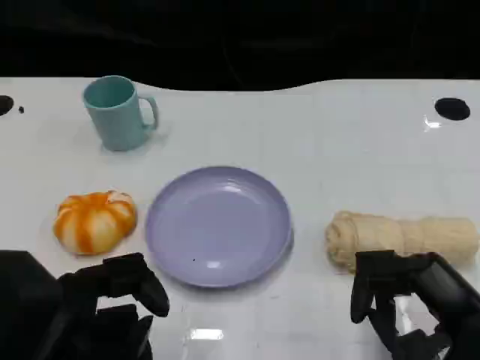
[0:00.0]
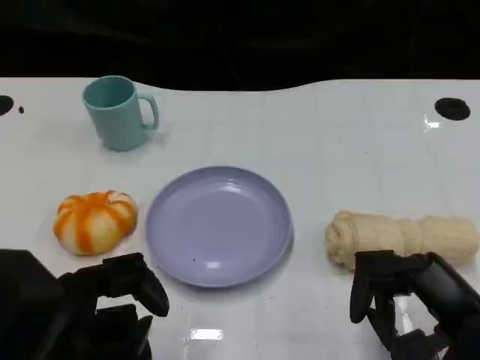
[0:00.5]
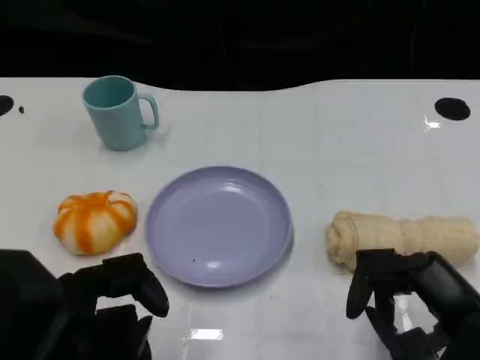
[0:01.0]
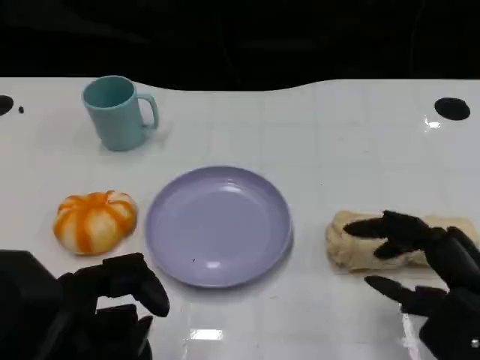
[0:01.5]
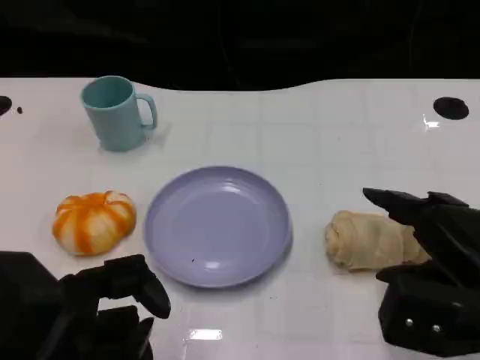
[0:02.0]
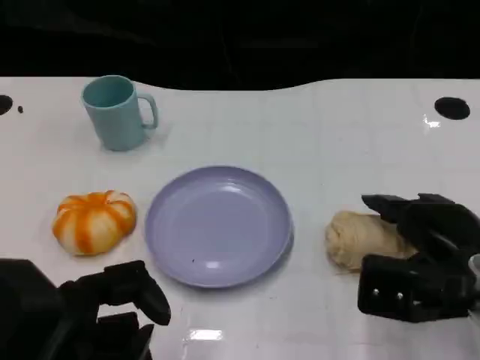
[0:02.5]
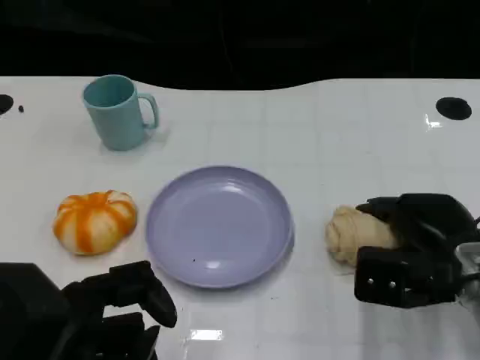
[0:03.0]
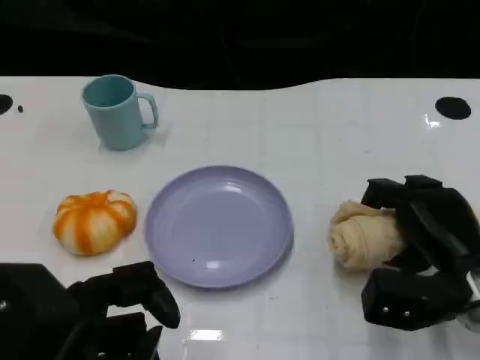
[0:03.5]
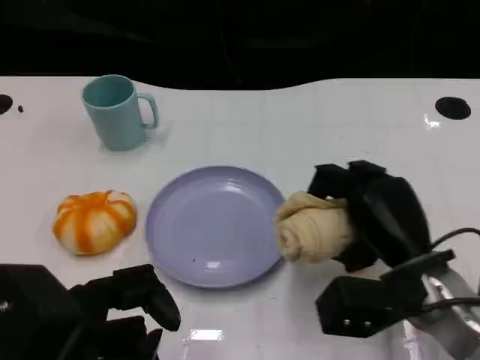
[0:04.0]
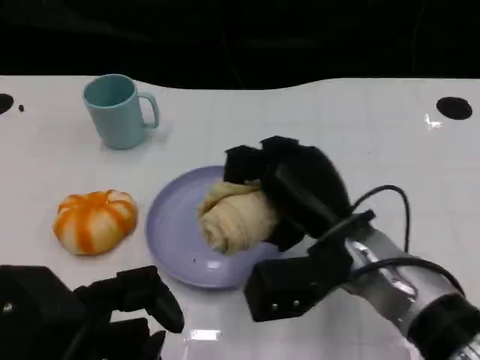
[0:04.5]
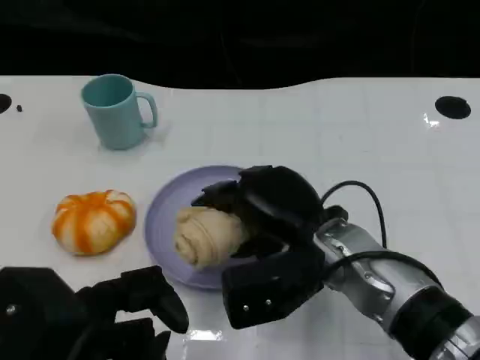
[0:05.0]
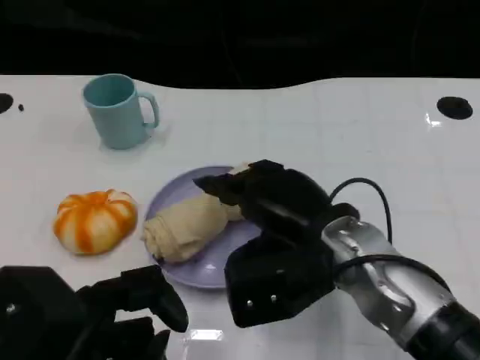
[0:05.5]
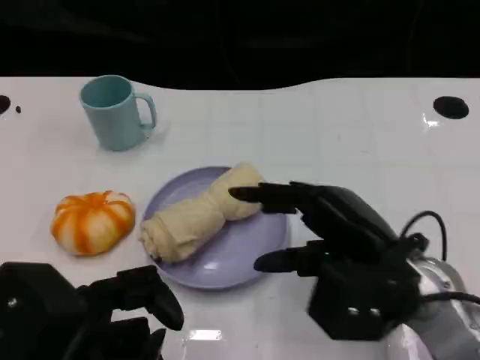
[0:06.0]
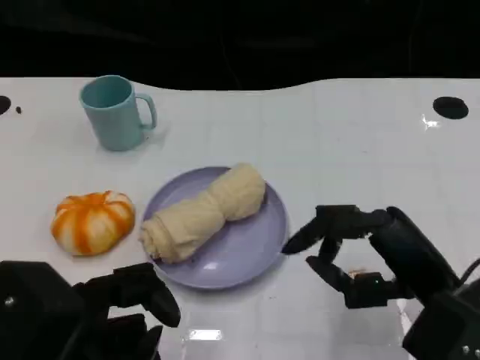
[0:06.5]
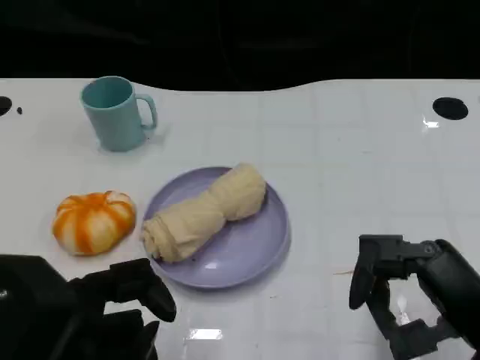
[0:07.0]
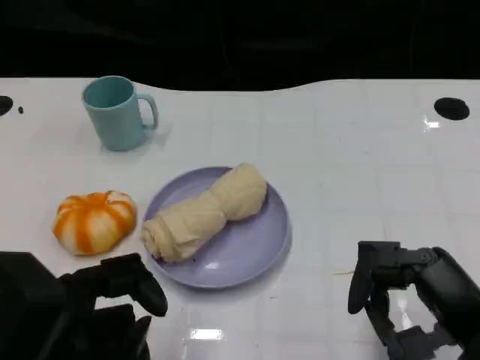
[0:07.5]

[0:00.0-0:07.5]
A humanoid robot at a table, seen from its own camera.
Task of the whole recording: Grasp the towel on the left side of the plate with the left hand and place it into the plate.
0:02.0 to 0:04.0: The right hand moves to the left, roughly 5 cm.
0:04.0 to 0:05.5: The right hand travels to the left and upward by approximately 10 cm.
0:05.5 to 0:07.5: The right hand is displaced to the right and backward by roughly 15 cm.

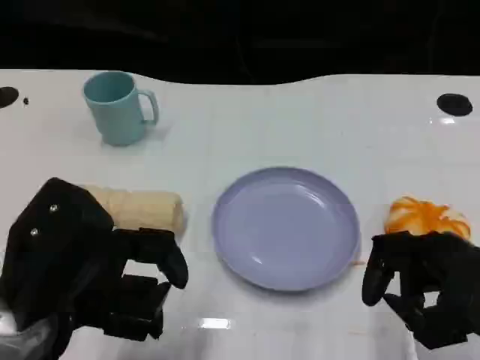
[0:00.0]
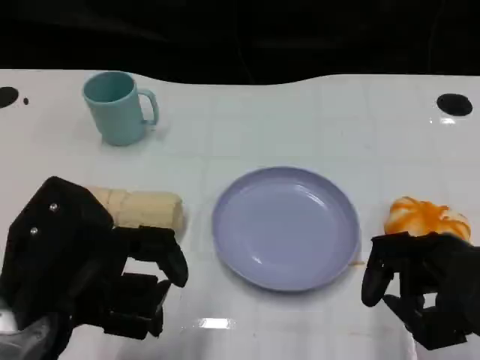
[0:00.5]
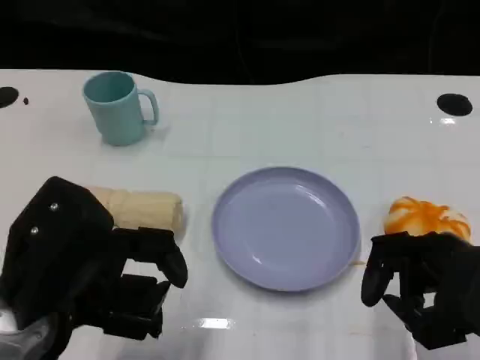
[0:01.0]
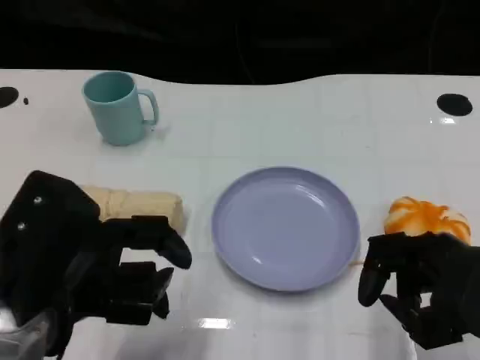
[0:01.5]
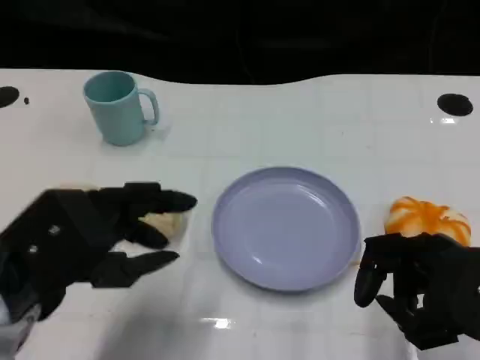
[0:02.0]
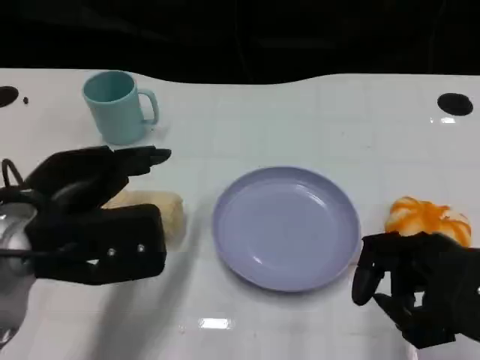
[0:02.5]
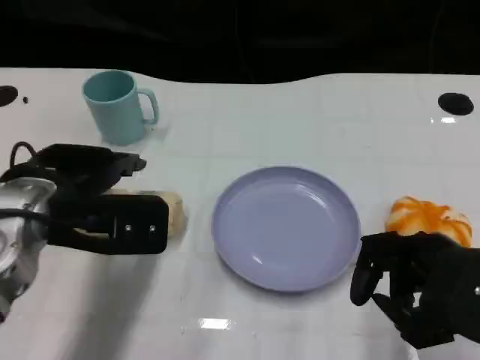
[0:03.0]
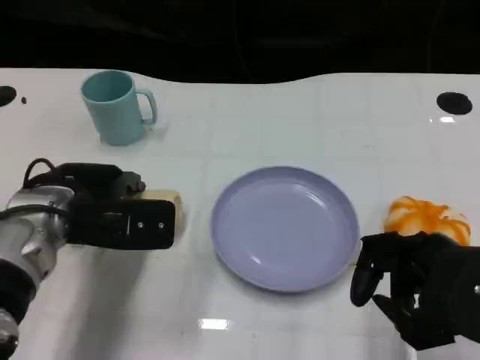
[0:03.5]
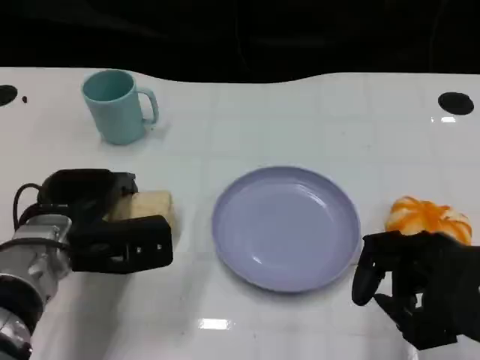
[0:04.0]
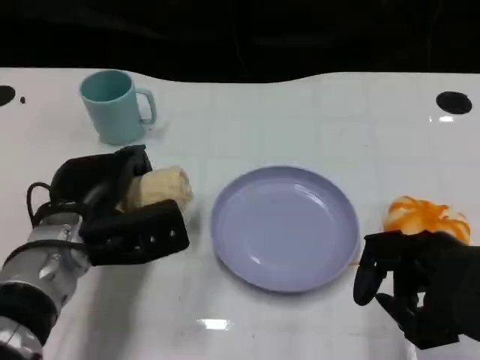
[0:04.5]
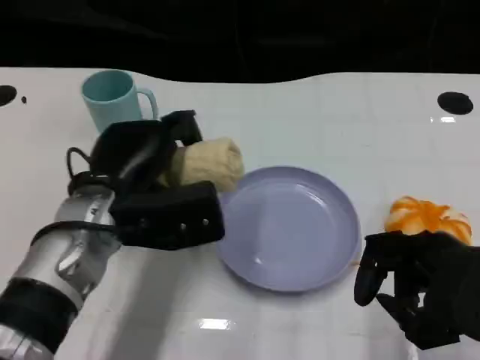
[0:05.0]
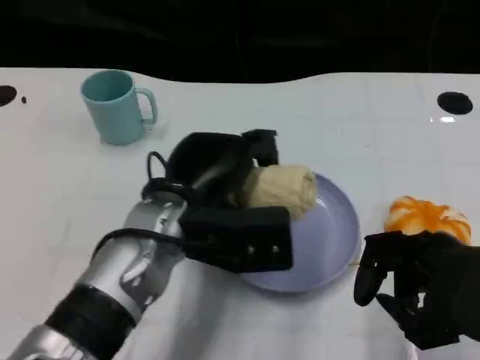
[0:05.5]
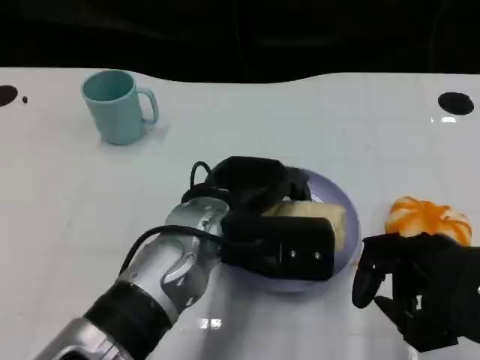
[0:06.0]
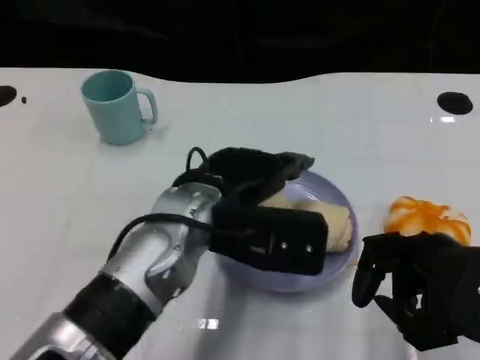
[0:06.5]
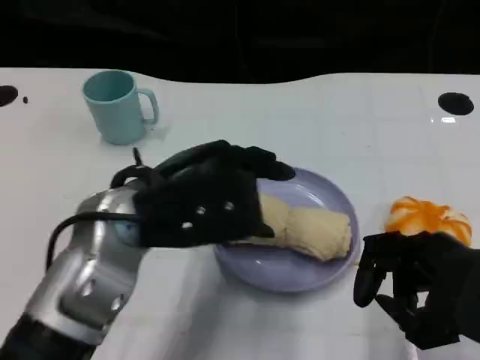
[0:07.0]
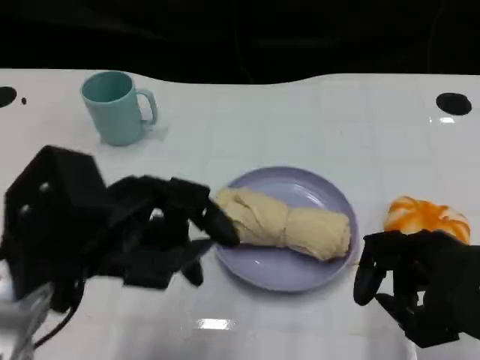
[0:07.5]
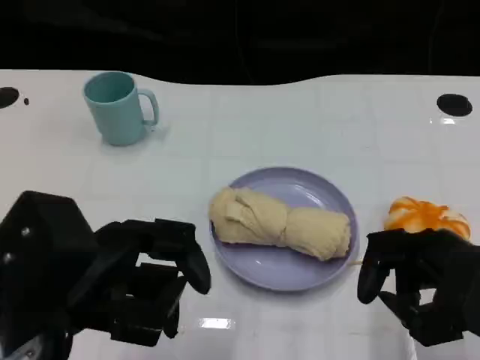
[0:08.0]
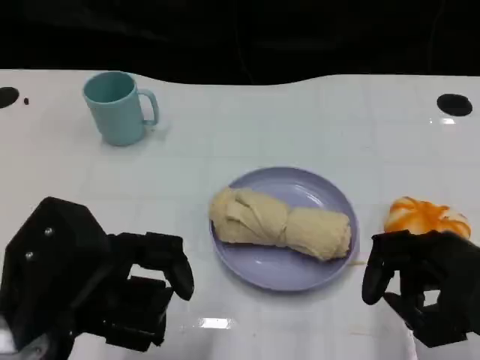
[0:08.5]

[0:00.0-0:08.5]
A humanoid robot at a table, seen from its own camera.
Task of the whole recording: Grasp the towel on the left side of the plate with the left hand and place it into the plate.
0:02.0 to 0:04.0: The left hand travels forward and downward by roughly 15 cm.
0:04.0 to 0:06.5: The left hand heads to the right and upward, covering some 15 cm.
0:06.5 to 0:08.5: The left hand travels to the left and backward by about 15 cm.

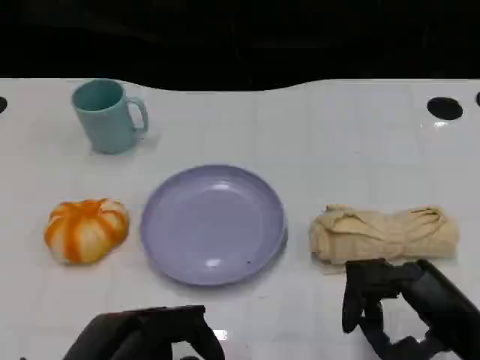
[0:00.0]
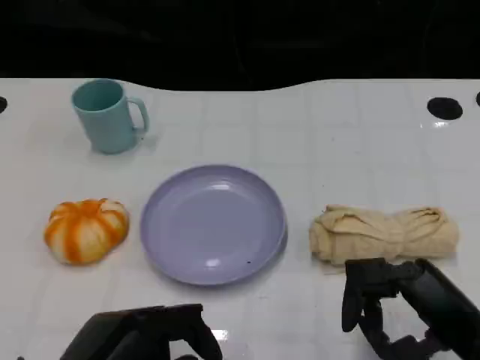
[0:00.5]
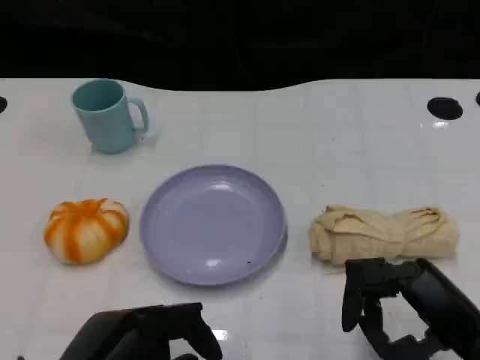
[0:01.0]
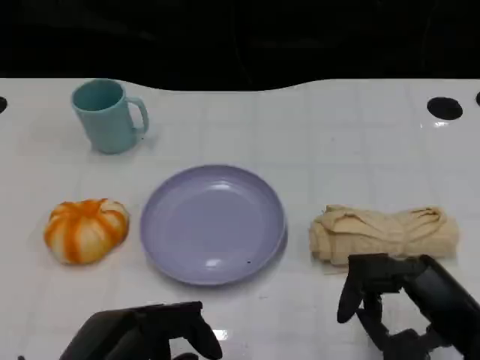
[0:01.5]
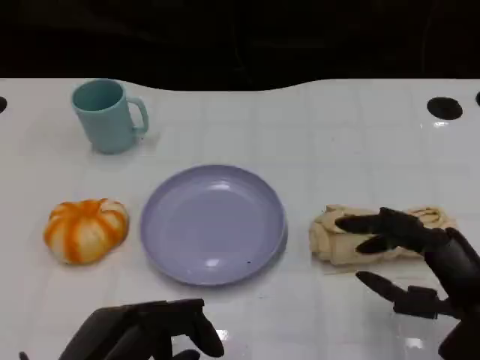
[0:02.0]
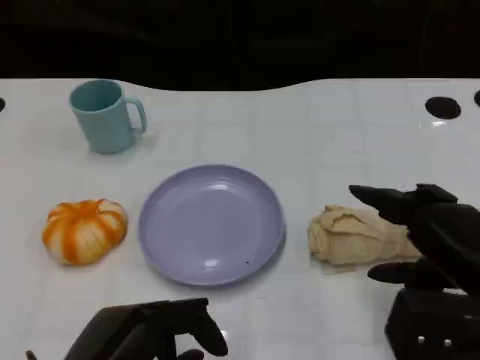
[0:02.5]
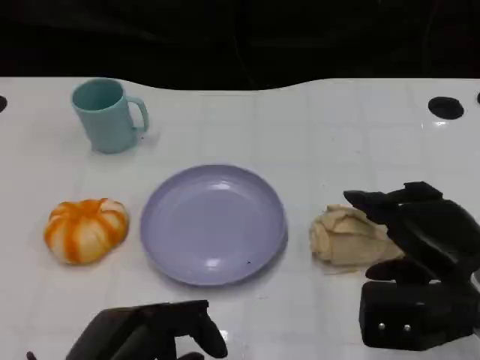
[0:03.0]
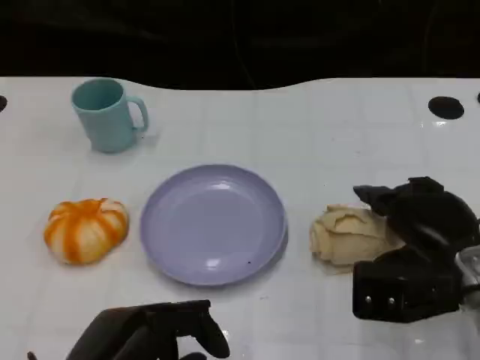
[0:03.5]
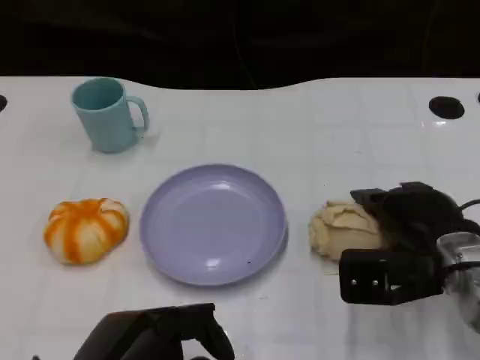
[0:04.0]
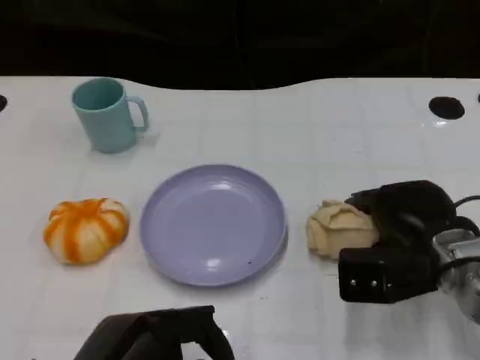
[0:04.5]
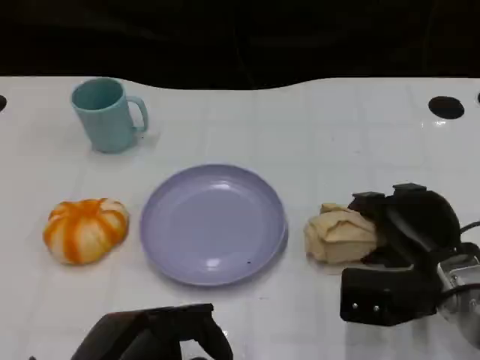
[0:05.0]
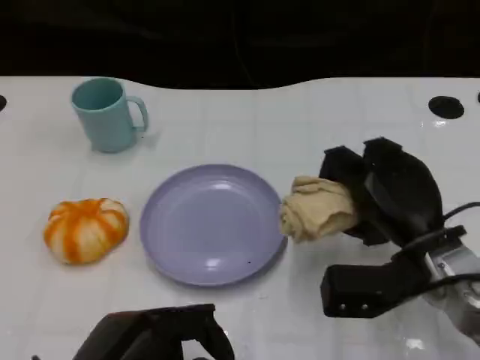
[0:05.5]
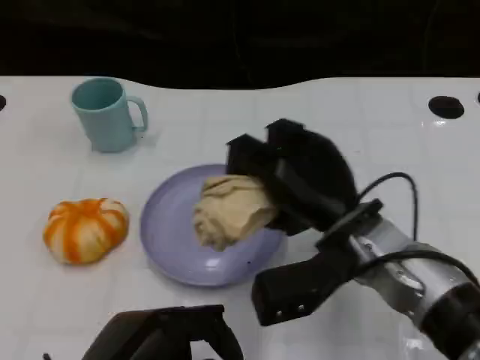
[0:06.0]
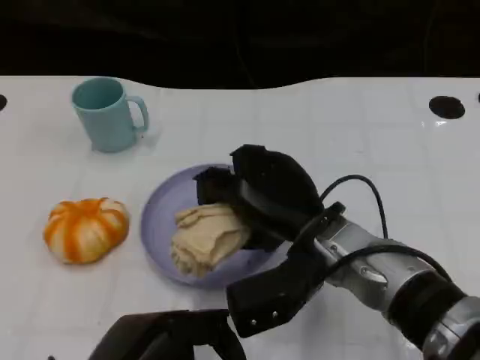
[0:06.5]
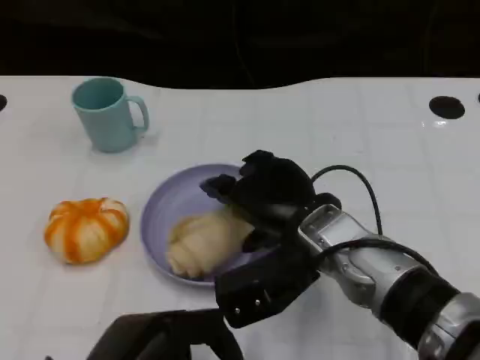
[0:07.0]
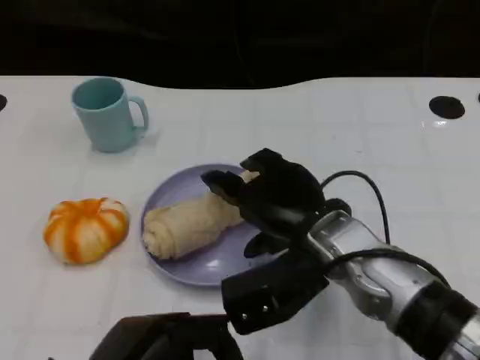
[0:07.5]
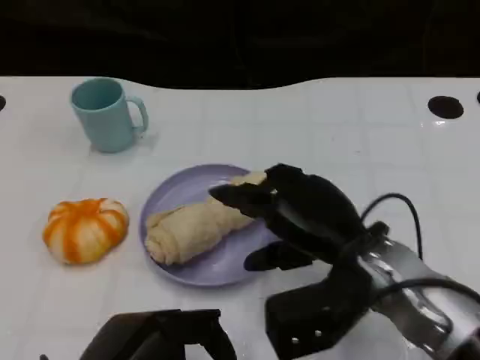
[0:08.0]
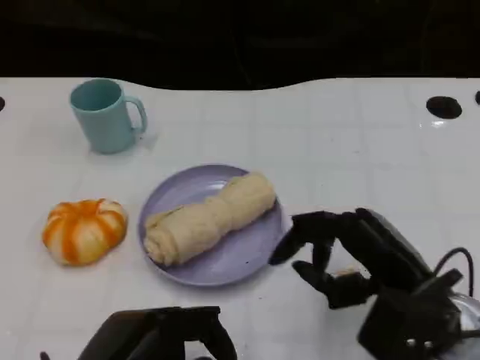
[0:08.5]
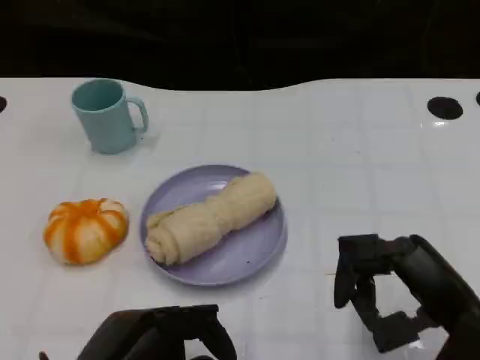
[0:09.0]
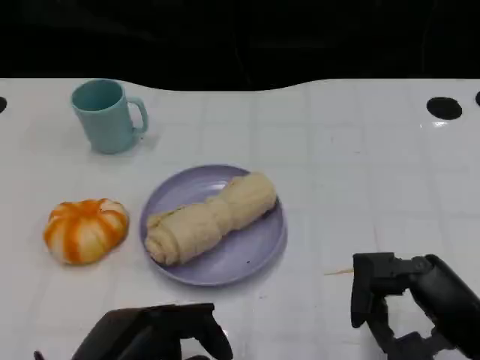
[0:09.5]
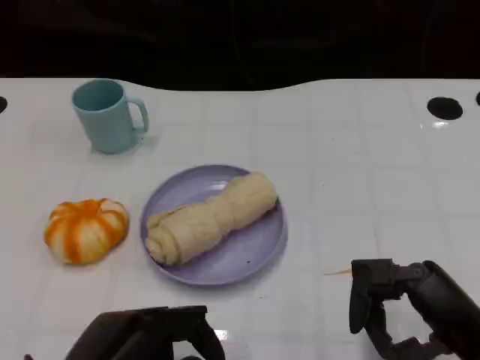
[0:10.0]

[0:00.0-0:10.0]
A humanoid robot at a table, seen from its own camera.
Task of the whole recording: Grasp the towel on the left side of the plate with the left hand and place it into the plate.
0:00.0 to 0:02.0: The hands stay close to where they were, moving slightly.
0:02.0 to 0:04.0: The right hand is displaced forward by roughly 10 cm.
0:04.0 to 0:06.0: The right hand goes some 10 cm to the left.
0:08.0 to 0:10.0: The right hand shifts some 15 cm to the right and backward.
